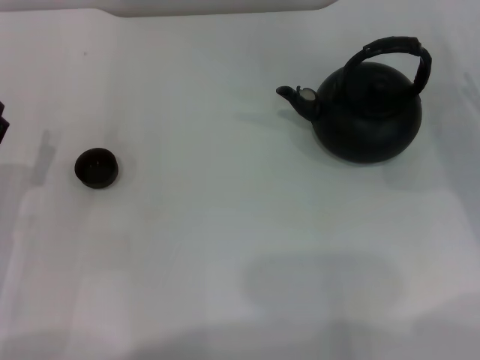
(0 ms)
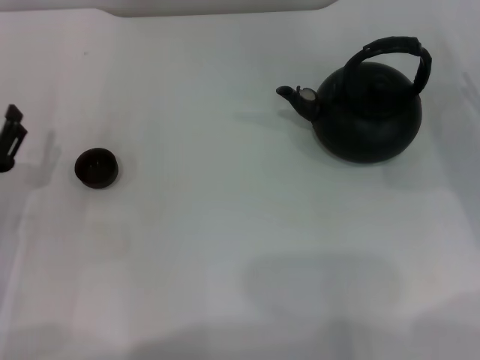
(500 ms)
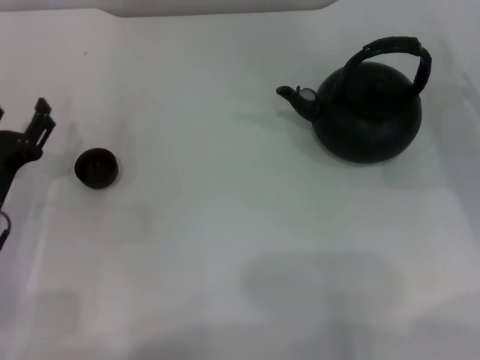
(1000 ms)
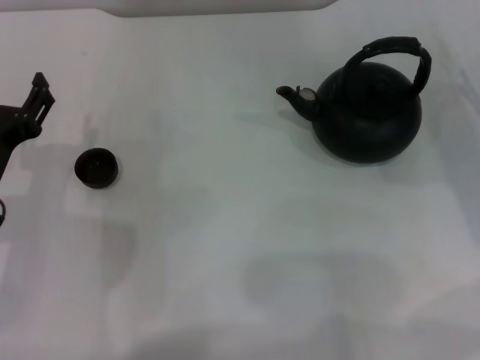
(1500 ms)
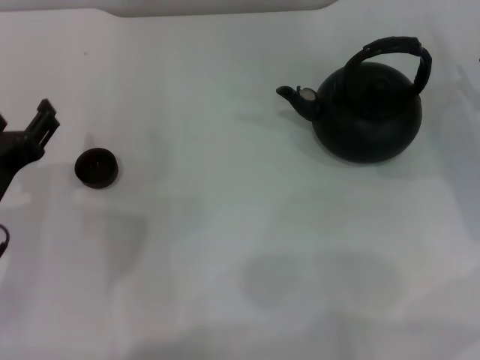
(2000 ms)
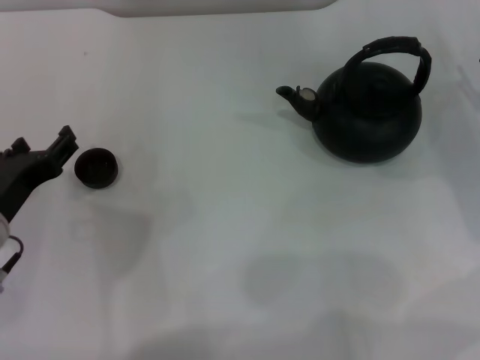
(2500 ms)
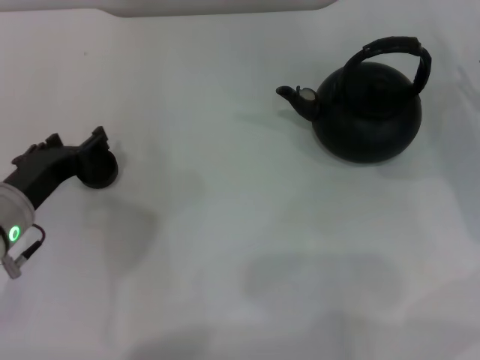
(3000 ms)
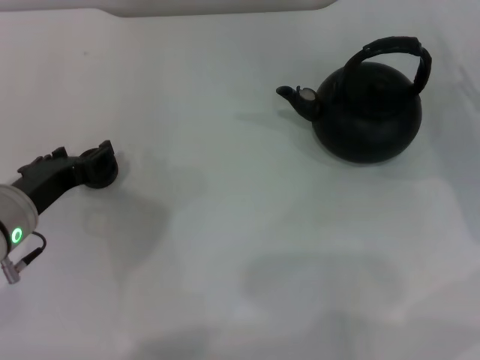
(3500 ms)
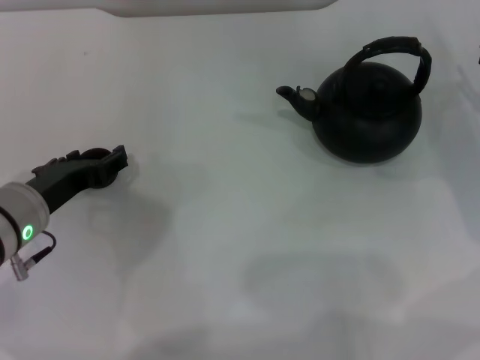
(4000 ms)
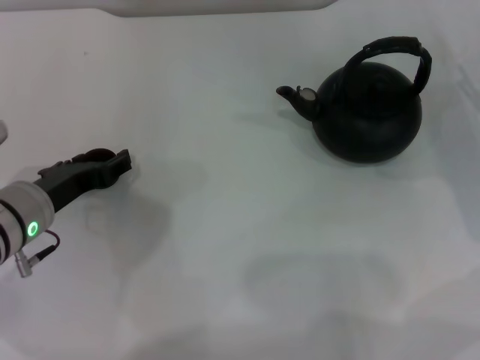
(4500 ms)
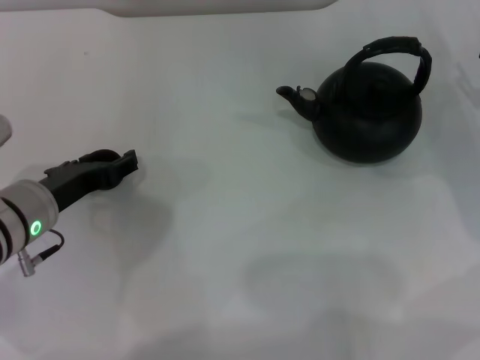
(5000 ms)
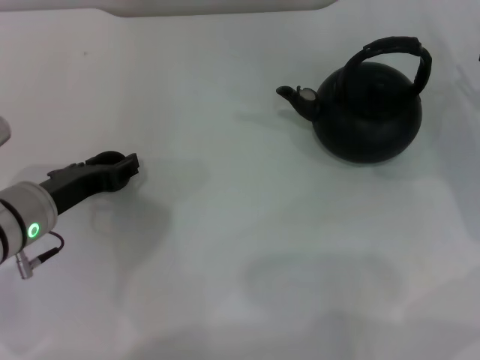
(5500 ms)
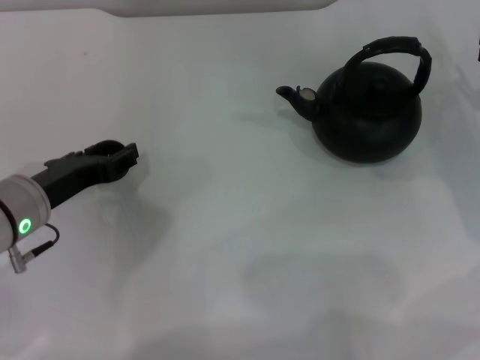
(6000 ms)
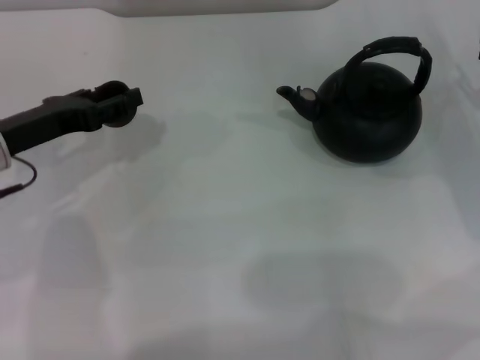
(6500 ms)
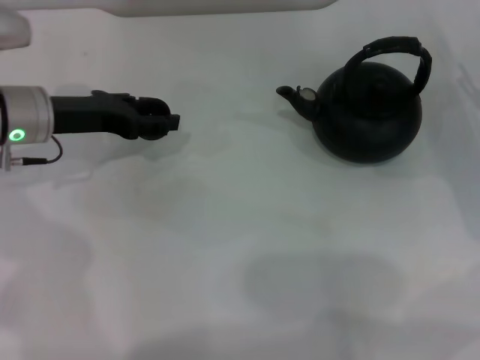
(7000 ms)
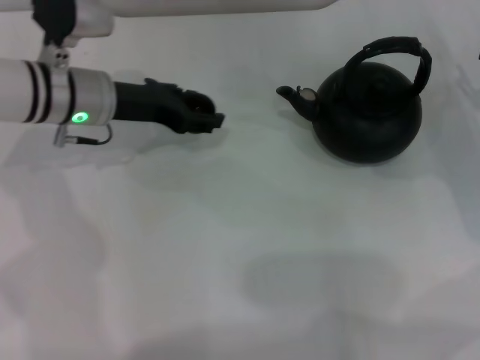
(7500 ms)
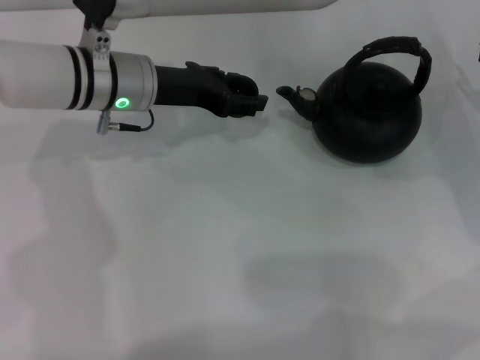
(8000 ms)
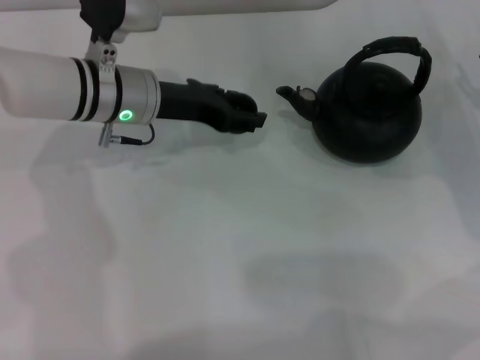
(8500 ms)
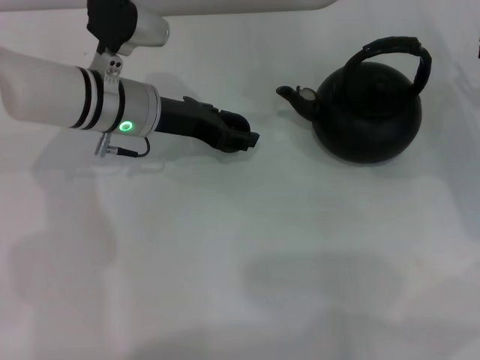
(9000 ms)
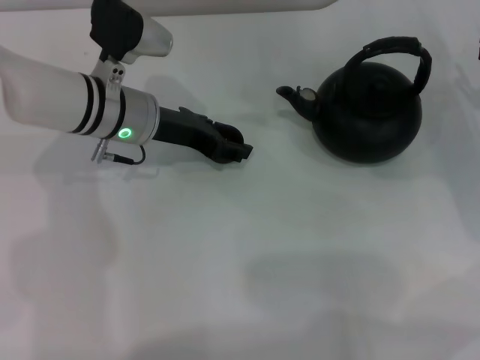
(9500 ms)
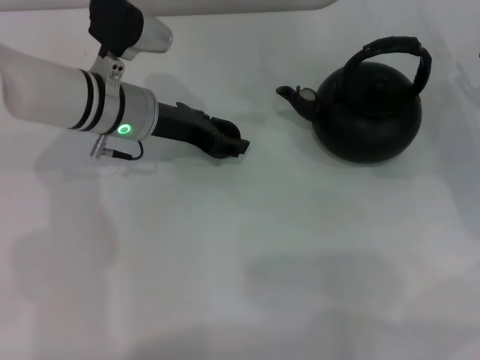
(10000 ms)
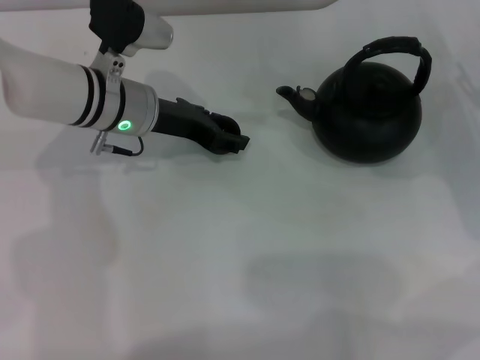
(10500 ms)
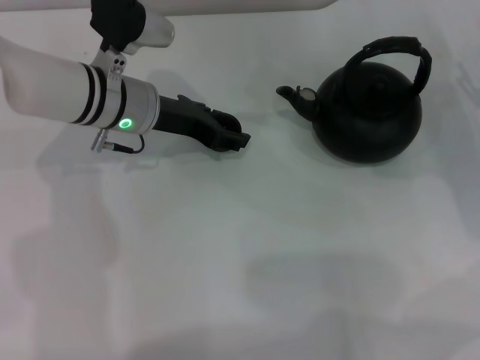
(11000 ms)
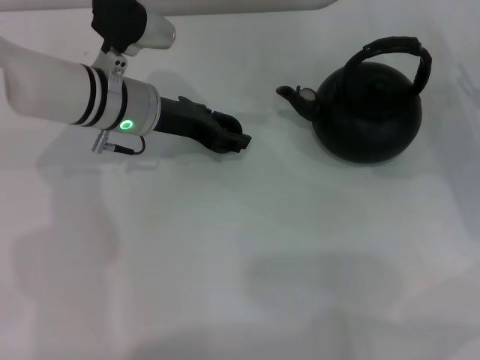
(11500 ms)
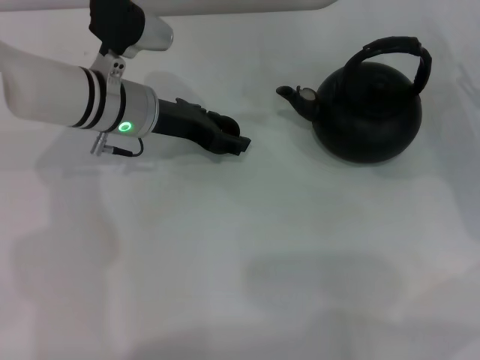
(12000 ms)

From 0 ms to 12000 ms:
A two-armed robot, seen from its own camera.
Task of the whole recording: Grasp the handle of the teapot with one hand and pour tea into the teacup.
Step, from 0 ms to 6000 ms: Pick up the teacup with the left gripper.
From 0 ms to 2000 ms: The left gripper moves upward and to the right, roughly 10 cm.
From 4000 ms to 6000 ms: The left gripper closes.
From 6000 ms to 8000 ms: The left gripper goes approximately 15 cm forward and to the right.
From 8000 ms to 10000 ms: The grippers make only small movements.
From 10000 ms to 12000 ms: The two grippers keep their place.

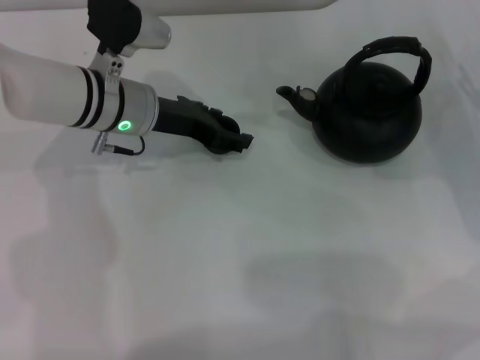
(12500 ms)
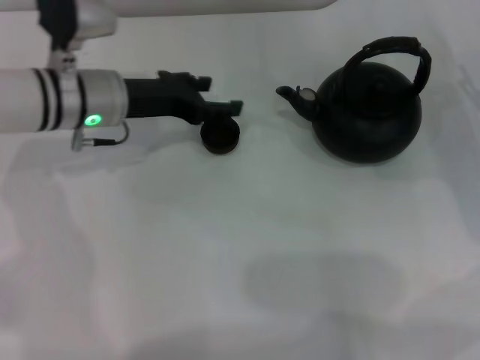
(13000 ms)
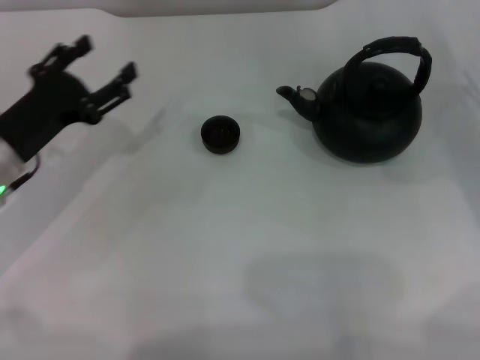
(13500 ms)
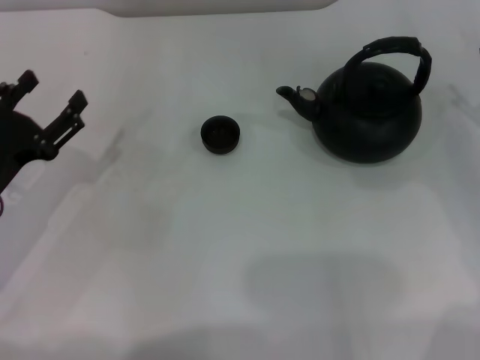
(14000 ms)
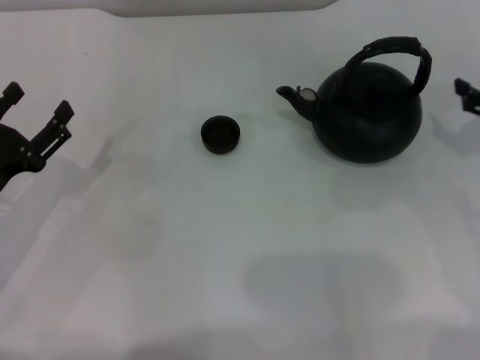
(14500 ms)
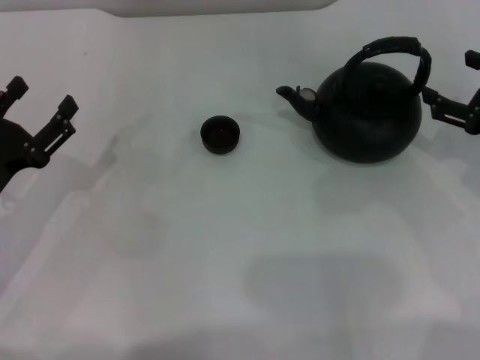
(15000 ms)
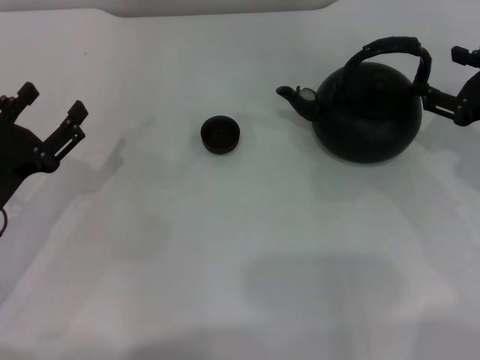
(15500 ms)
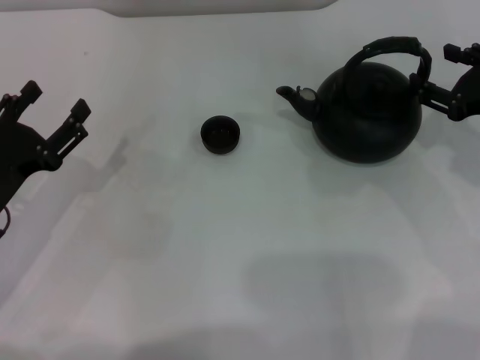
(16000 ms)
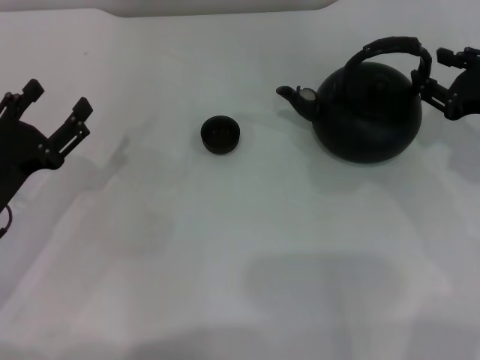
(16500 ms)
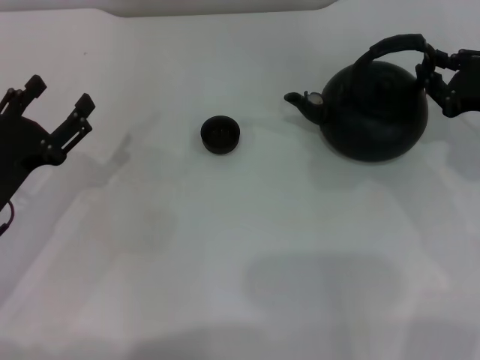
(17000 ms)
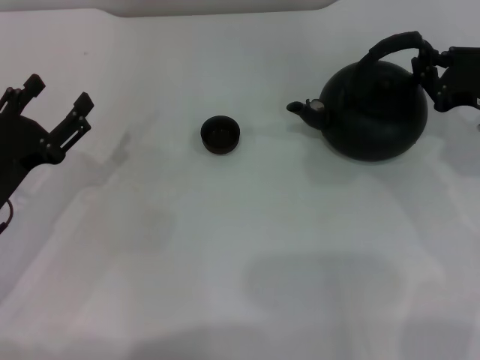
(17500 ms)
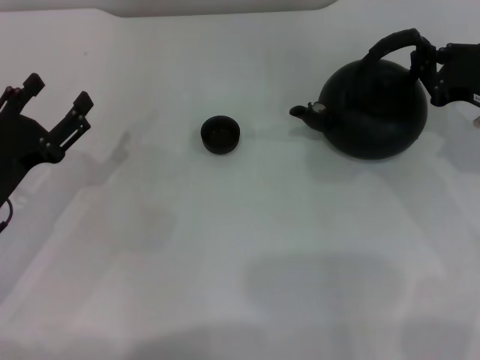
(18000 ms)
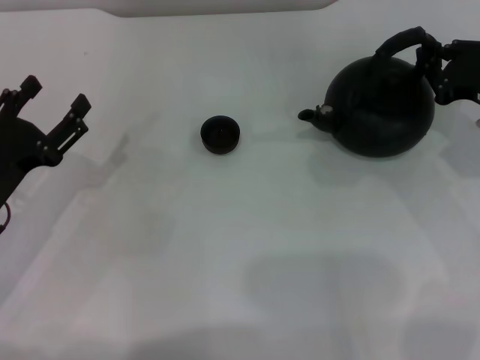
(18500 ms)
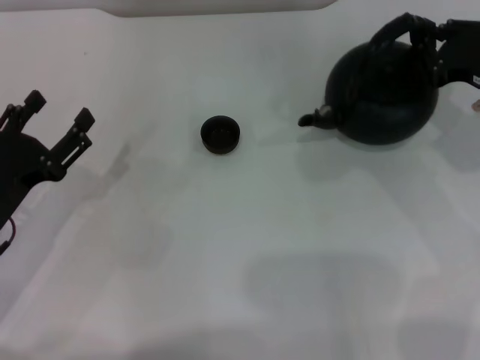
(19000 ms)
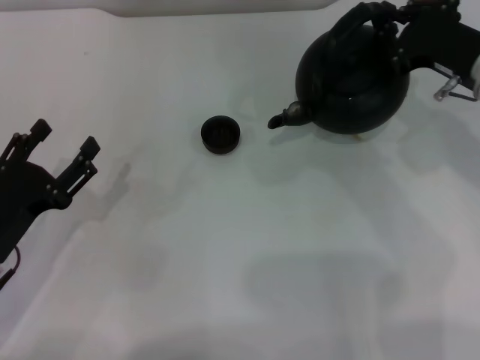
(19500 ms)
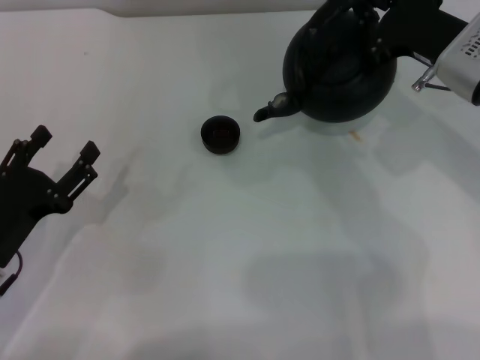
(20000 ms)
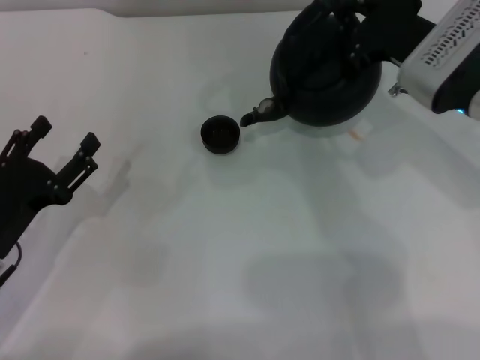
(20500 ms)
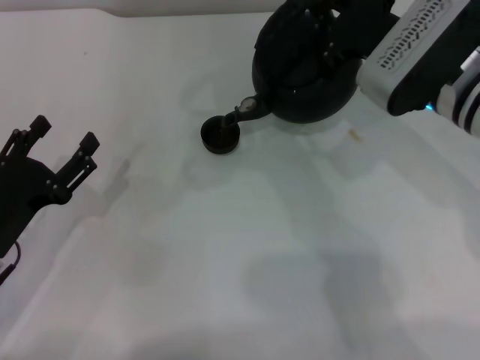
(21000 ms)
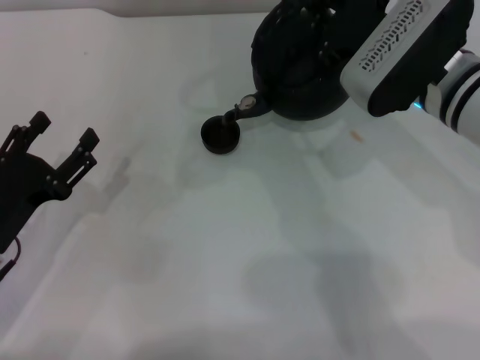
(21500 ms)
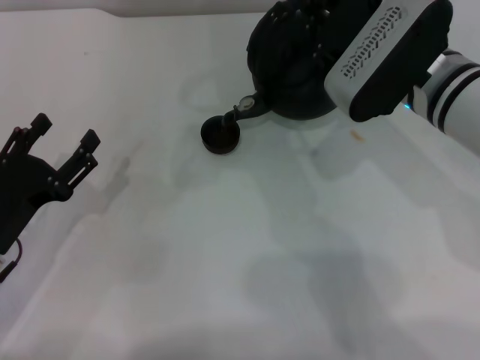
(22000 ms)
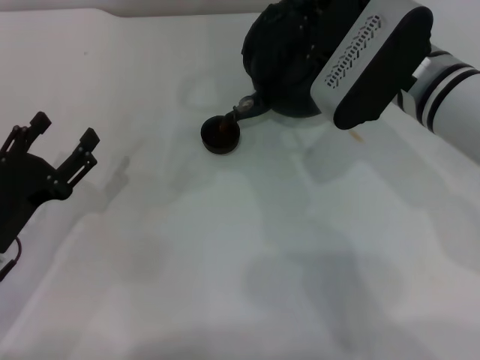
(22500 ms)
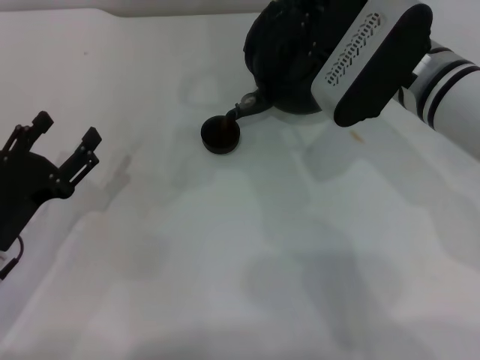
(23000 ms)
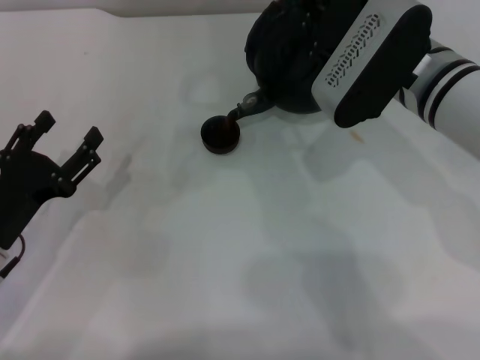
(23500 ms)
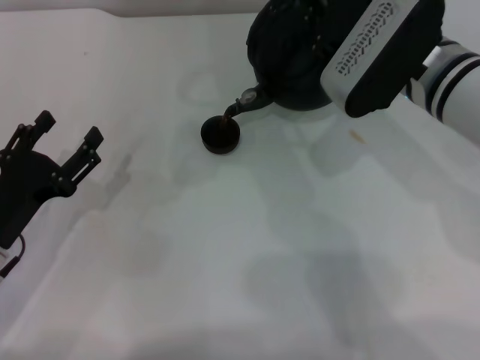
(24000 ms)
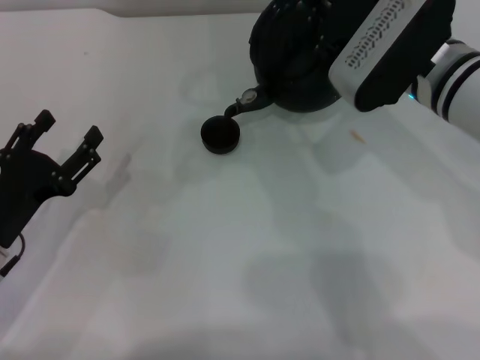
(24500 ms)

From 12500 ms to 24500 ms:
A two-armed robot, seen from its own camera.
Task of the whole recording: Grasp the handle of the teapot with one hand and pour tea into the teacup.
Step, from 13500 ms to 20000 ms: Pick up the teapot with the right gripper.
From 12500 ms to 14500 ms: The right gripper goes about 5 cm upward. Meanwhile the left gripper shifts about 20 cm backward and to the left.
From 14500 ms to 16500 ms: The right gripper closes its fingers.
From 16500 ms to 18500 ms: The right gripper closes up.
From 18500 ms to 20500 ms: The right gripper heads to the left, covering roughly 10 cm.
From 20500 ms to 22500 ms: The right gripper heads to the left, covering some 5 cm.
From 22500 ms to 24500 ms: There are only small adjustments of the grippers.

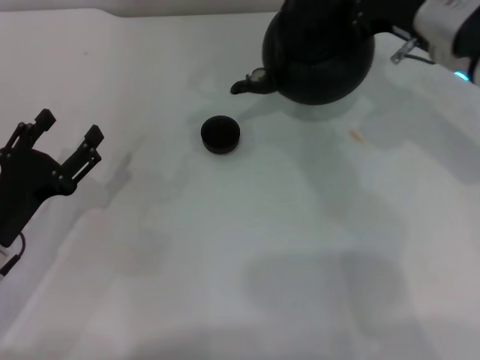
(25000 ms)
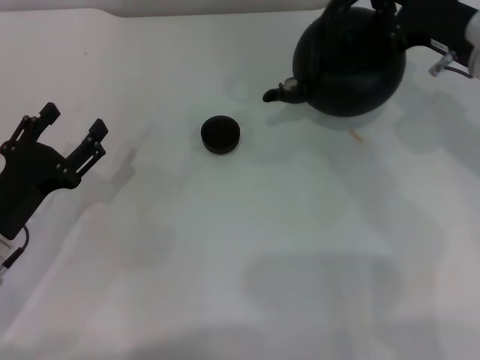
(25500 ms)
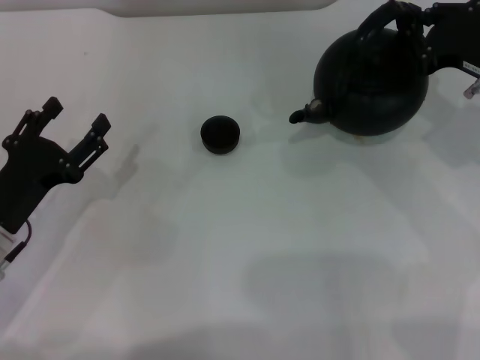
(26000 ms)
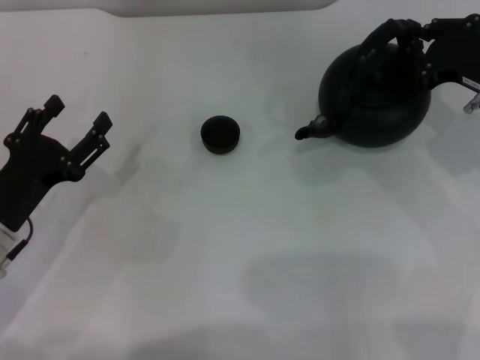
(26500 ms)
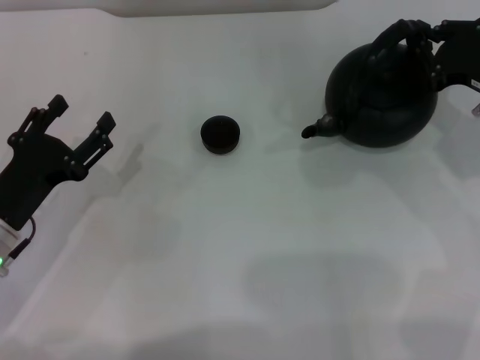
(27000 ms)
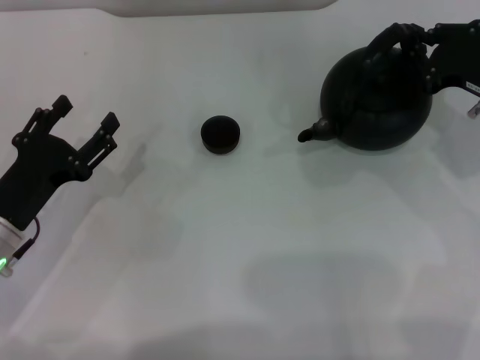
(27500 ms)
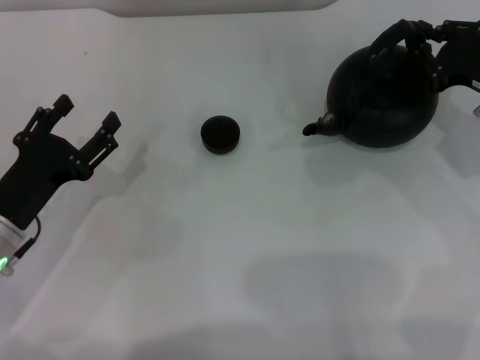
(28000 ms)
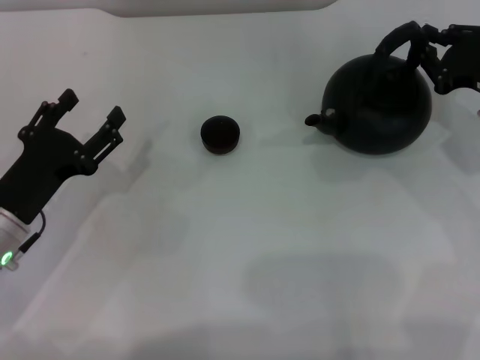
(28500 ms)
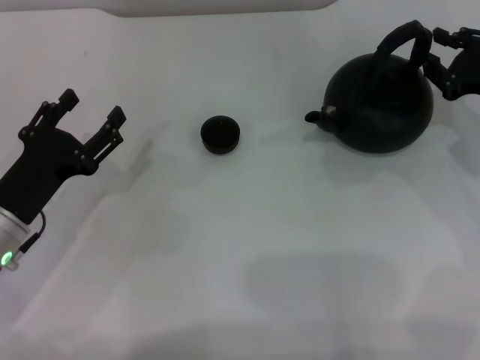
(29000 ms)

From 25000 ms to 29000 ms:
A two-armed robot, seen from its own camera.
Task of the whole recording: Grasp the handle of the teapot with one hand and pour tea into the teacup.
From 25000 ms to 27000 ms: The right gripper goes approximately 10 cm to the right.
From 27000 ms to 29000 ms: The grippers stay close to where they were, moving slightly.
